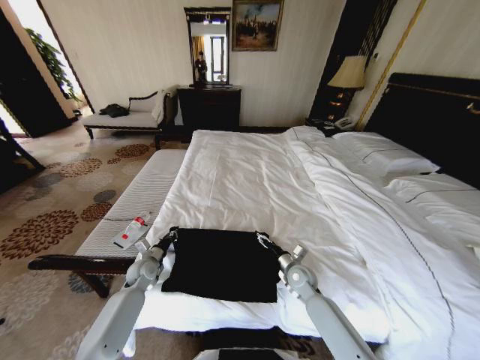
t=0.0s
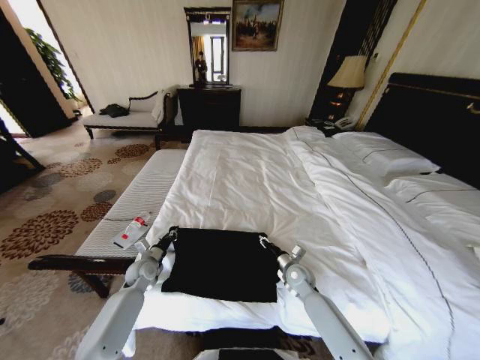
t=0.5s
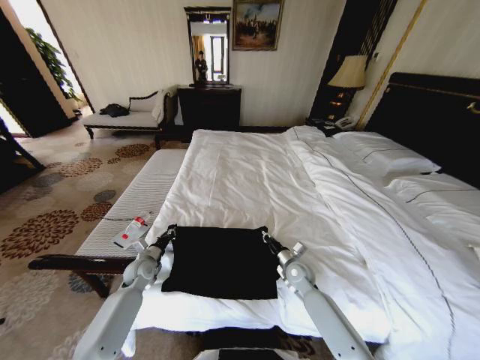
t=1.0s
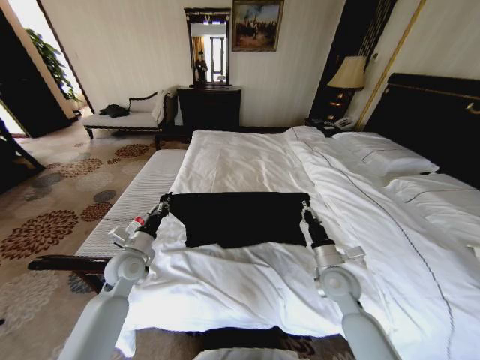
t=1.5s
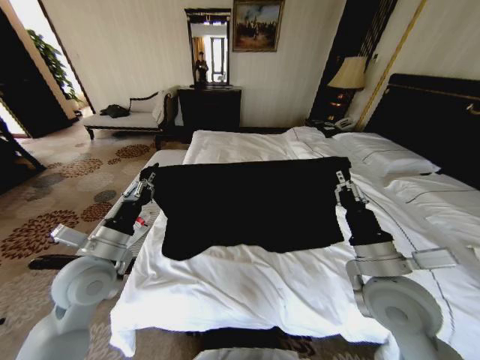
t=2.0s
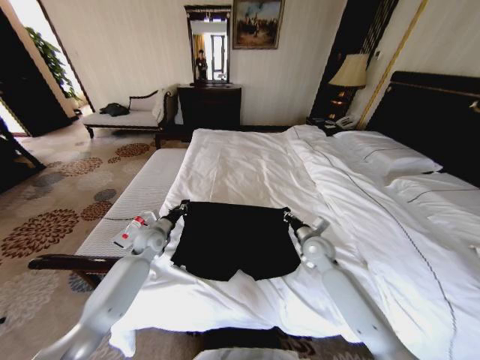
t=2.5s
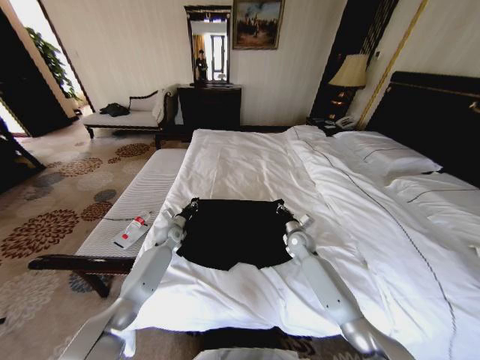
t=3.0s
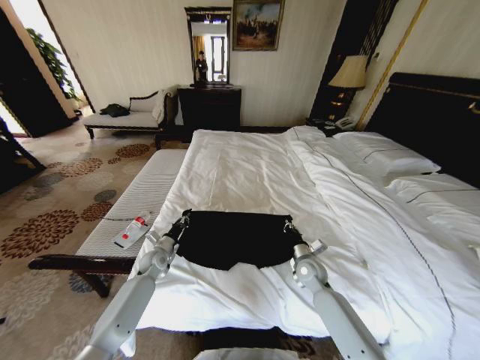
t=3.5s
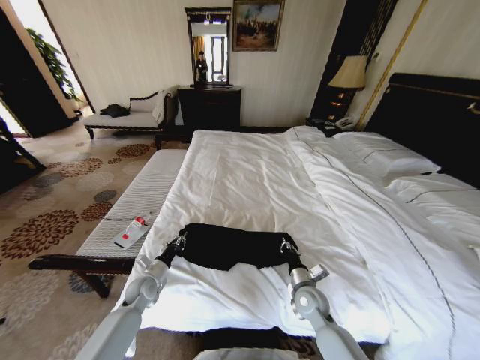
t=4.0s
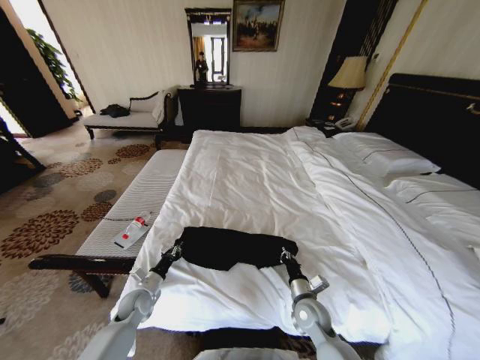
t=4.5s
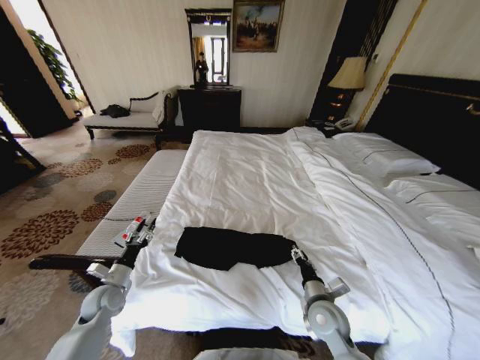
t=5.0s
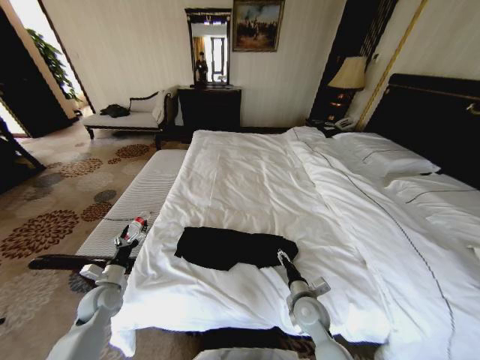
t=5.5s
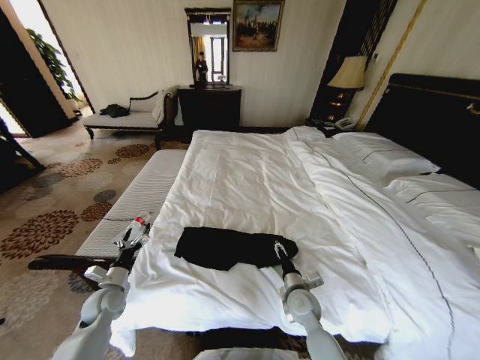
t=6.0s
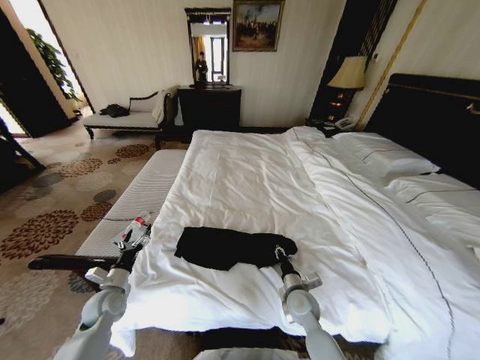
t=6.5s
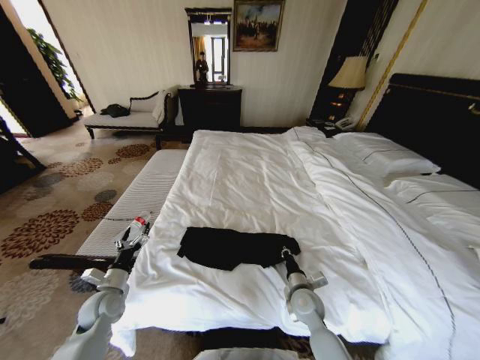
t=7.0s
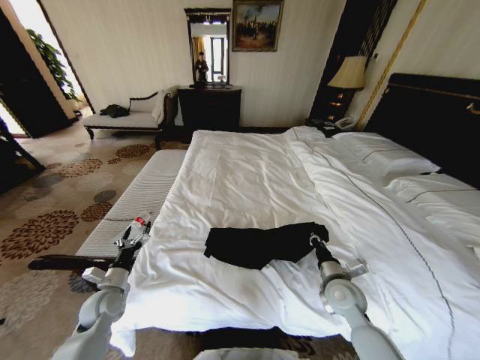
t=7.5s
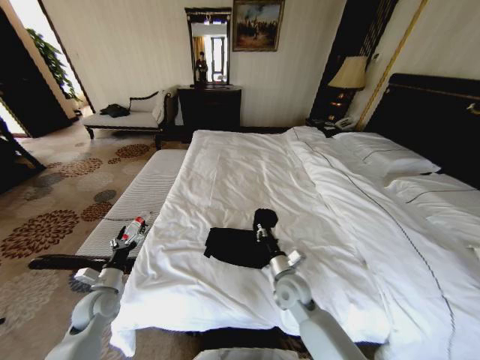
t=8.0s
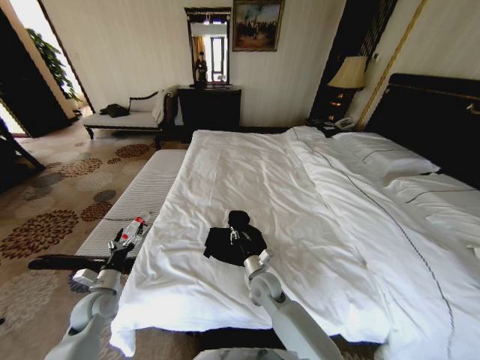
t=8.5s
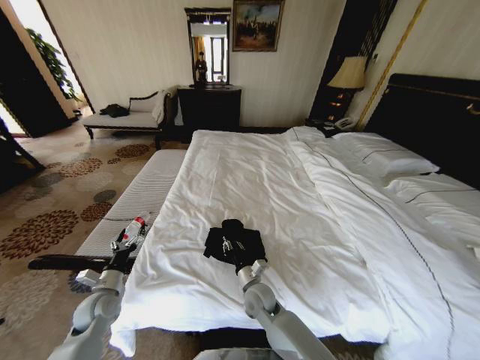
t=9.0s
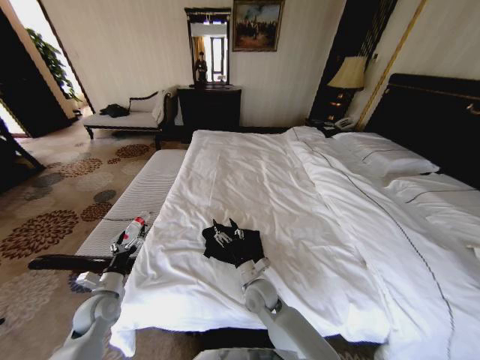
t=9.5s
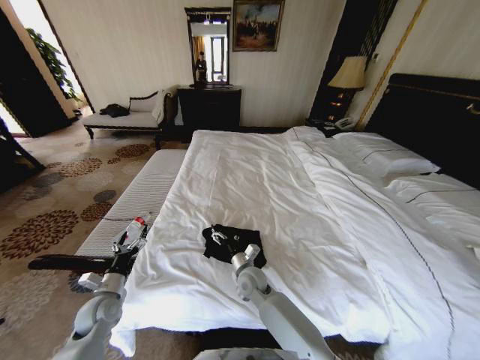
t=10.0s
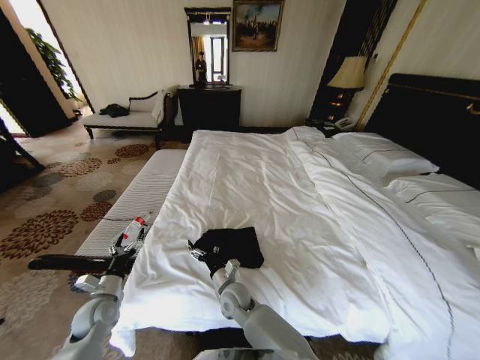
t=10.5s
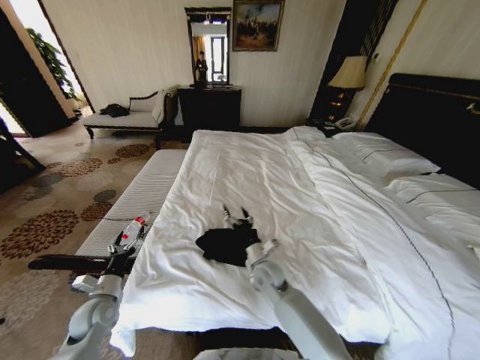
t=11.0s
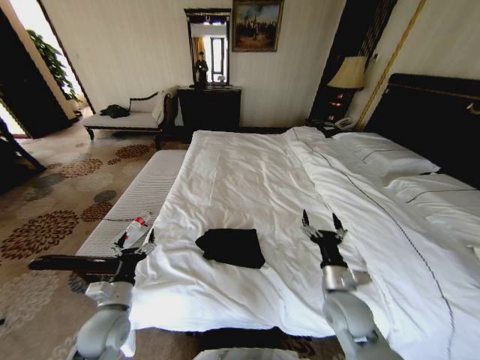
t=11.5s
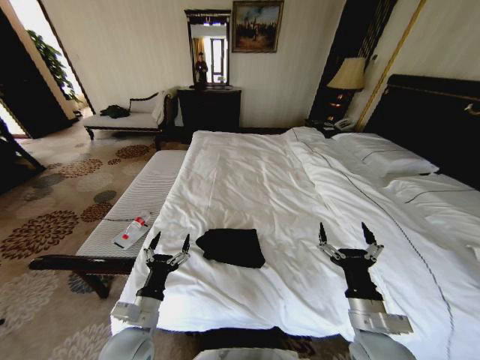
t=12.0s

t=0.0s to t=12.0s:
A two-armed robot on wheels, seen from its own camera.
Task of the whole recording: Fold the clothes on the bed.
t=0.0s to t=2.0s: The grippers both shift upward and backward by some 30 cm. The right gripper closes.
t=2.0s to t=4.0s: The two grippers go roughly 25 cm downward. The right gripper reaches about 25 cm forward, then returns.
t=4.0s to t=6.0s: The right gripper opens, while the left gripper shifts roughly 10 cm to the left, and opens its fingers.
t=6.0s to t=8.0s: The right gripper heads upward, covering approximately 5 cm, travels to the right and back again, roughly 10 cm each way, and closes its fingers.
t=8.0s to t=10.0s: The right gripper travels to the left by roughly 10 cm, and opens its fingers.
t=10.0s to t=12.0s: The right gripper is displaced to the right, backward and upward by some 30 cm. The left gripper heads to the right, backward and upward, covering about 20 cm.
